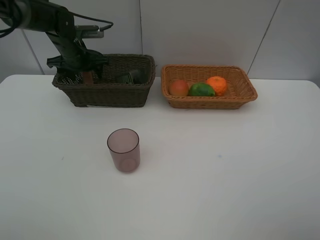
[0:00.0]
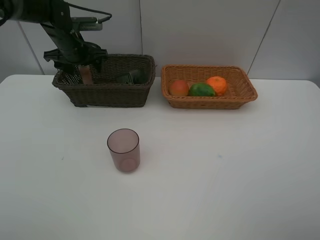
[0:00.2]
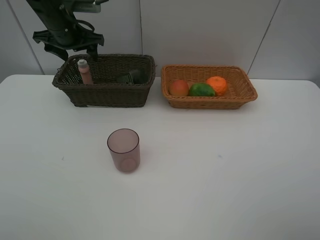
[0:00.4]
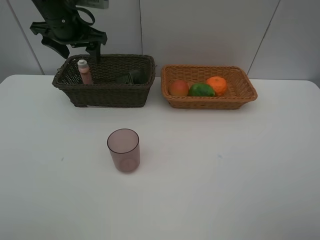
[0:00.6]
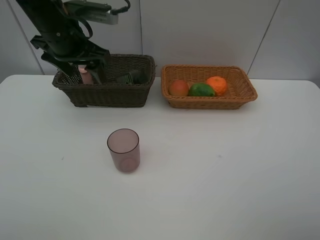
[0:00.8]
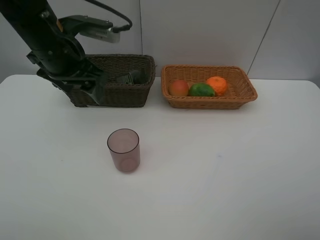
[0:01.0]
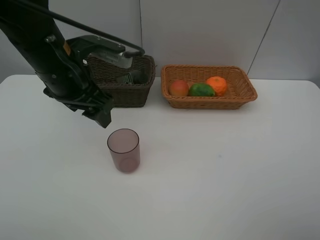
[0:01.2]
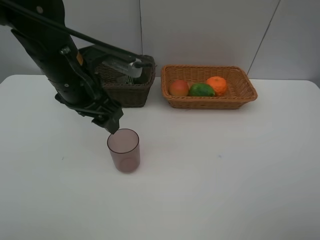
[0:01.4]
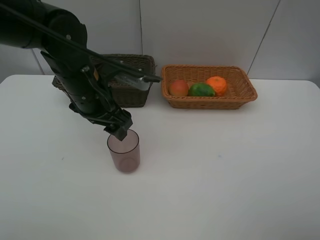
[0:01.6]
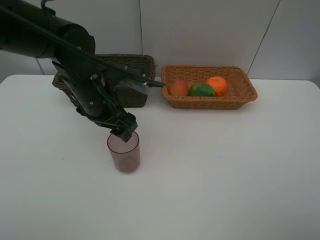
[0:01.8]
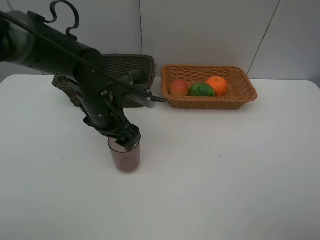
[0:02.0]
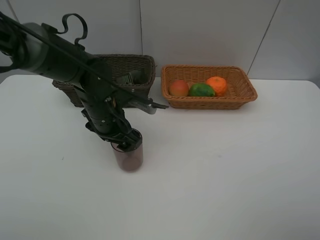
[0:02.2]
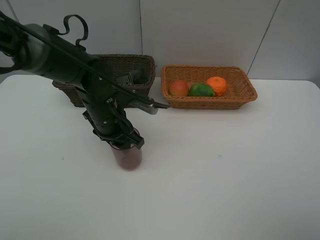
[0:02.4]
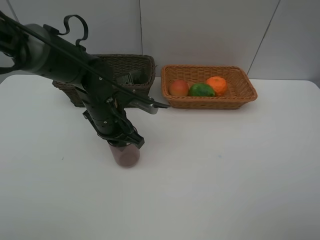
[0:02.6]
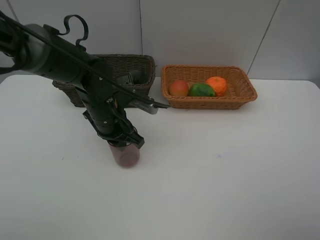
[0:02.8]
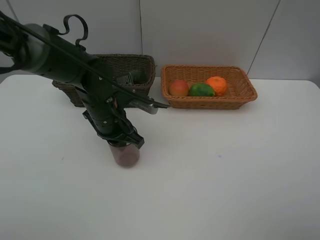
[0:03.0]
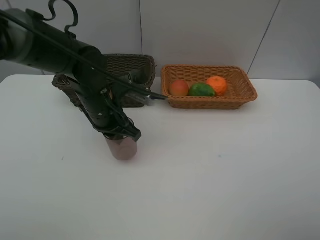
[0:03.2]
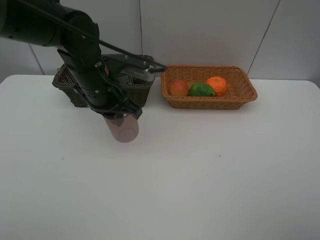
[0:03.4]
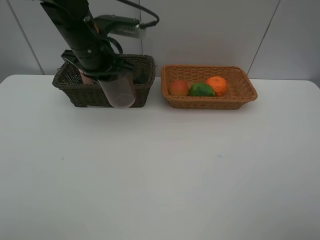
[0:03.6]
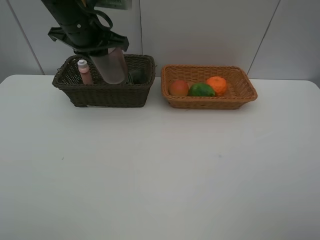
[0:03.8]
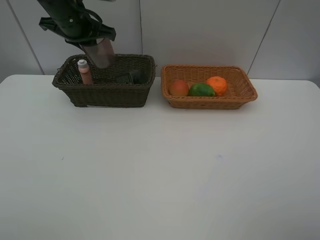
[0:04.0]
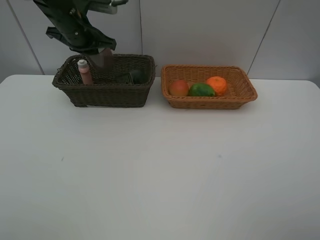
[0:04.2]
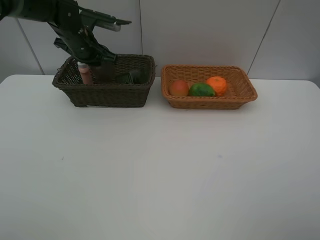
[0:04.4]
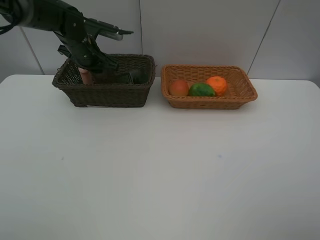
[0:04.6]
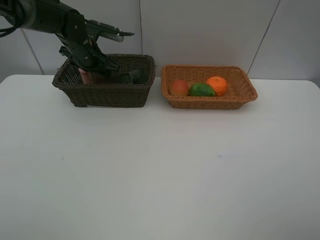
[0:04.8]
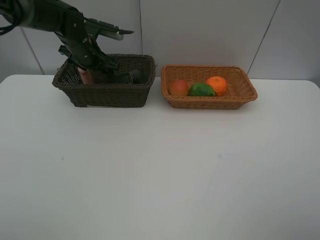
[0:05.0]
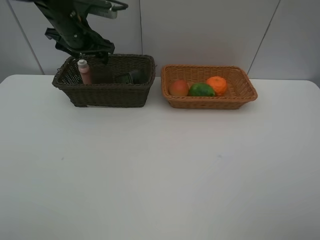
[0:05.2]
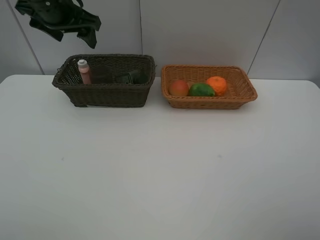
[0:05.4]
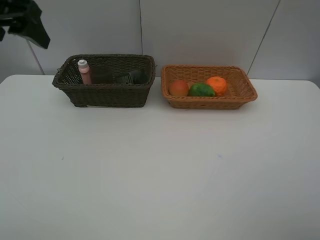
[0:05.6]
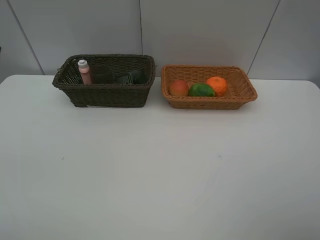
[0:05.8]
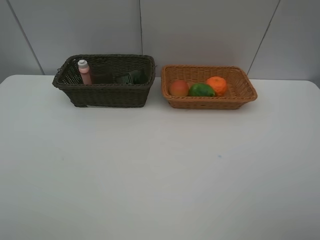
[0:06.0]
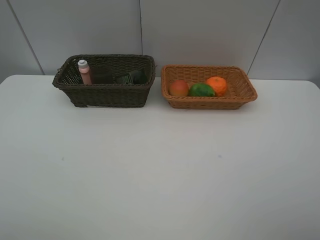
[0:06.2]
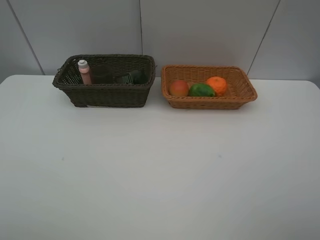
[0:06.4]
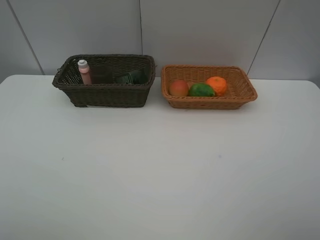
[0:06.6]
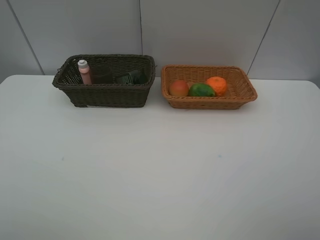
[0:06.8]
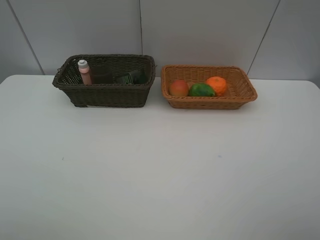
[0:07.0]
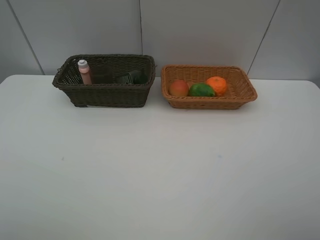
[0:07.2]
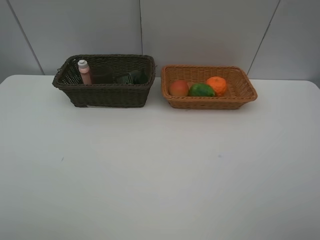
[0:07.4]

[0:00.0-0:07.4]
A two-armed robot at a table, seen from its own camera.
Task of the whole recording: place multiple objects separately in different baskets.
0:00.0 to 0:01.4: The left gripper moves backward and to the right, about 25 cm.
0:01.4 to 0:03.0: The left gripper goes roughly 10 cm downward, and closes up.
0:03.0 to 0:04.4: The left gripper heads forward, to the left and upward, covering approximately 20 cm.
0:04.4 to 0:06.0: The left gripper is displaced backward and upward by about 40 cm, and opens its fingers.

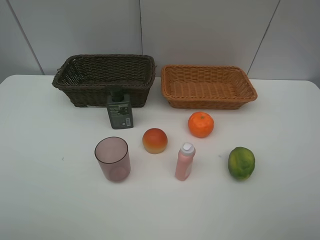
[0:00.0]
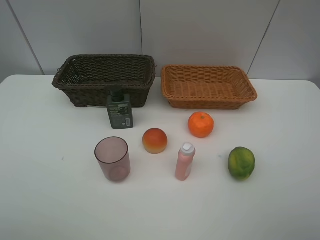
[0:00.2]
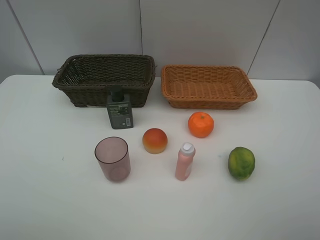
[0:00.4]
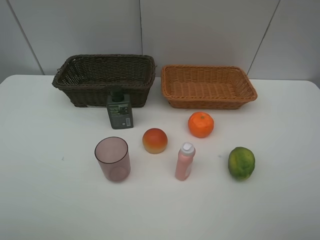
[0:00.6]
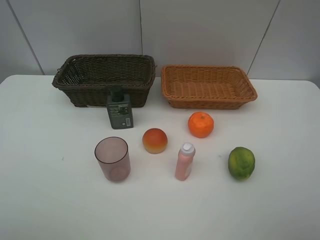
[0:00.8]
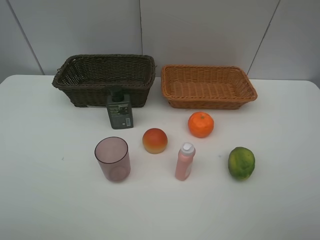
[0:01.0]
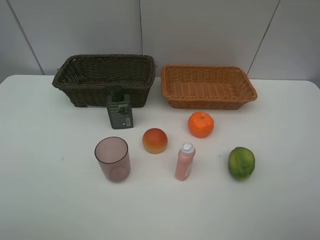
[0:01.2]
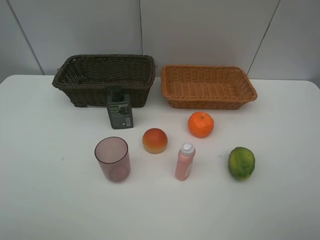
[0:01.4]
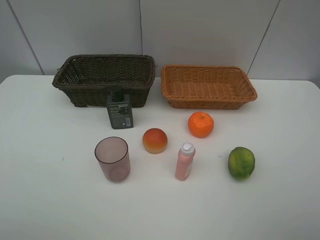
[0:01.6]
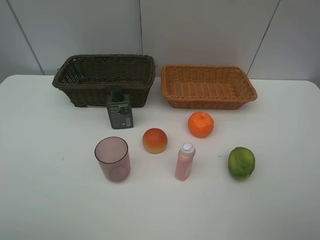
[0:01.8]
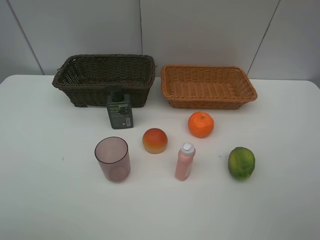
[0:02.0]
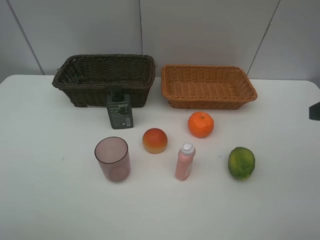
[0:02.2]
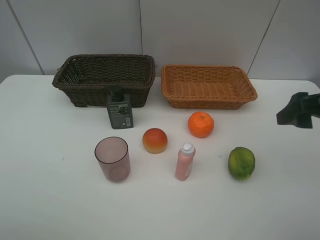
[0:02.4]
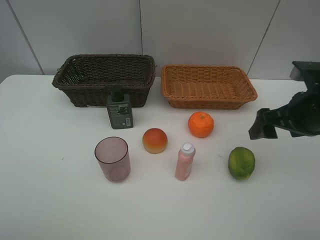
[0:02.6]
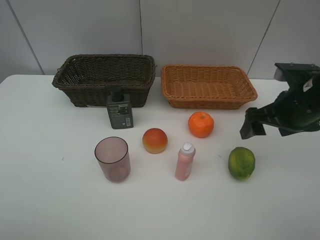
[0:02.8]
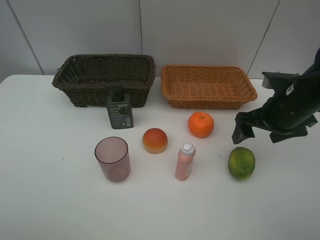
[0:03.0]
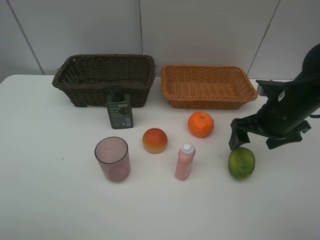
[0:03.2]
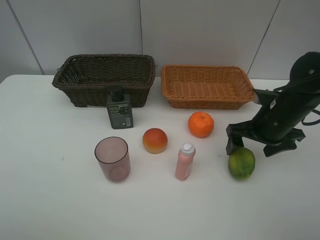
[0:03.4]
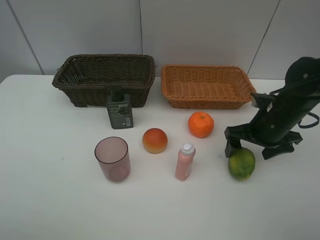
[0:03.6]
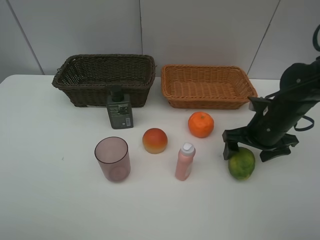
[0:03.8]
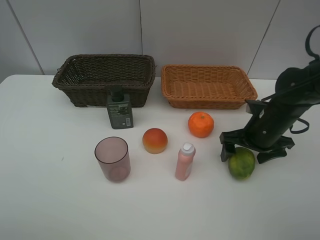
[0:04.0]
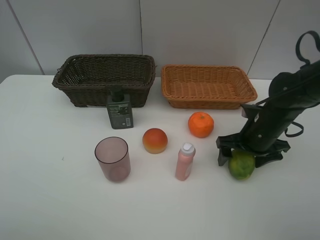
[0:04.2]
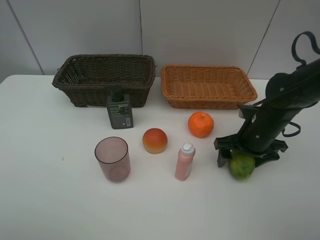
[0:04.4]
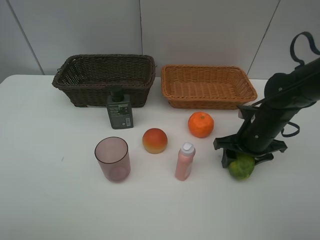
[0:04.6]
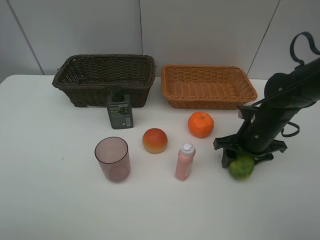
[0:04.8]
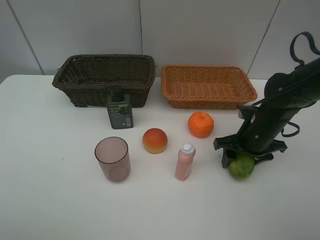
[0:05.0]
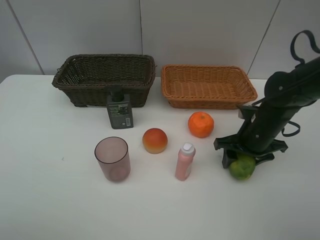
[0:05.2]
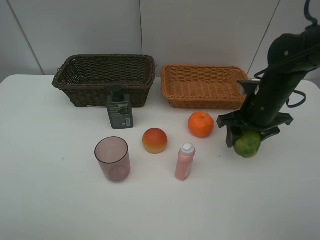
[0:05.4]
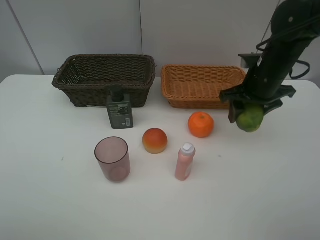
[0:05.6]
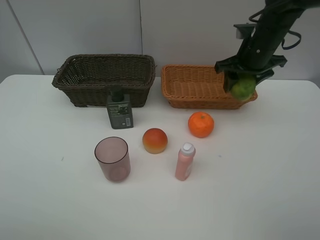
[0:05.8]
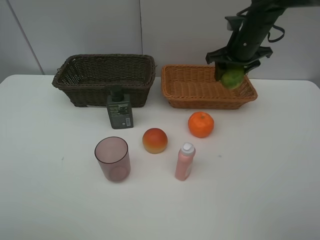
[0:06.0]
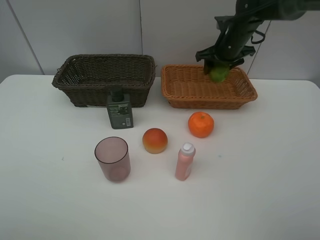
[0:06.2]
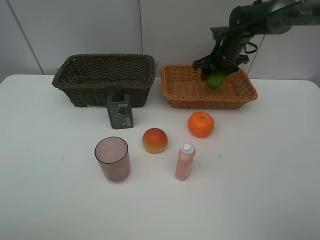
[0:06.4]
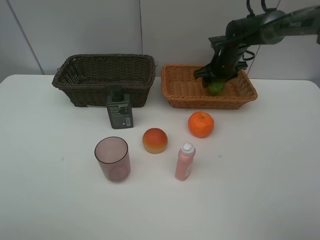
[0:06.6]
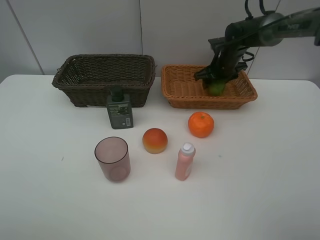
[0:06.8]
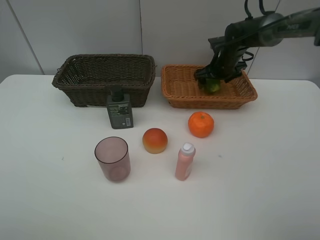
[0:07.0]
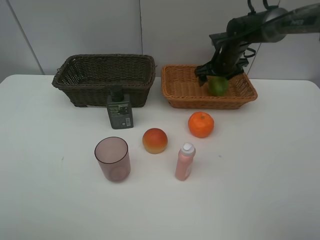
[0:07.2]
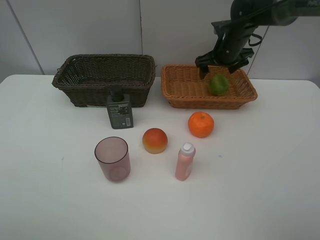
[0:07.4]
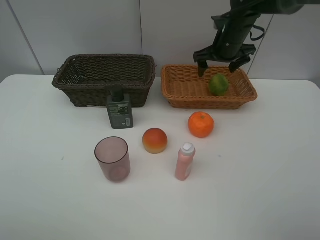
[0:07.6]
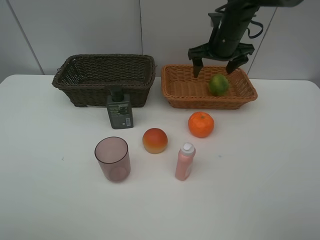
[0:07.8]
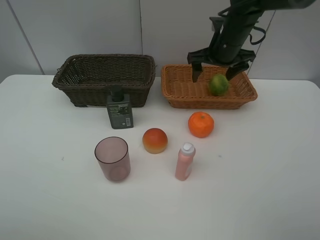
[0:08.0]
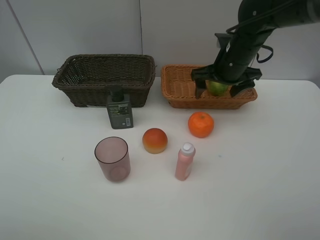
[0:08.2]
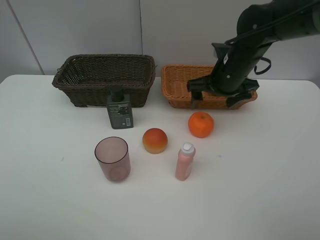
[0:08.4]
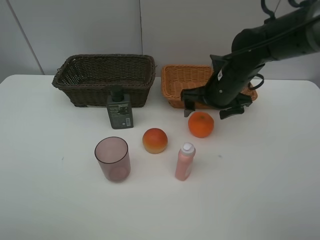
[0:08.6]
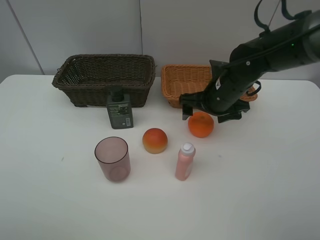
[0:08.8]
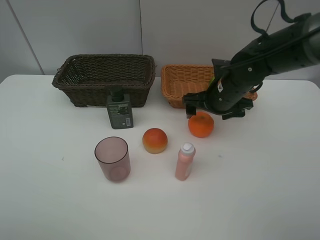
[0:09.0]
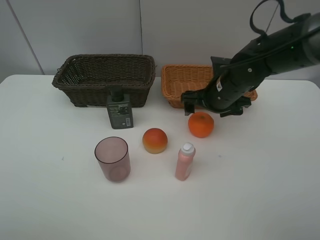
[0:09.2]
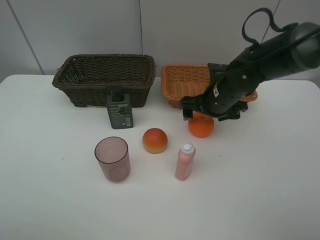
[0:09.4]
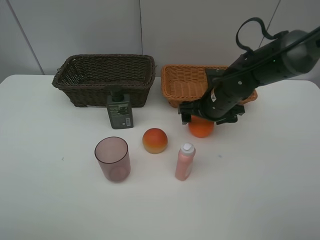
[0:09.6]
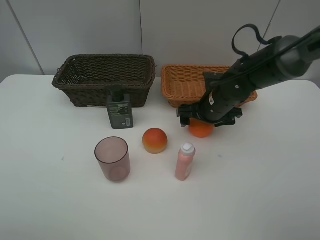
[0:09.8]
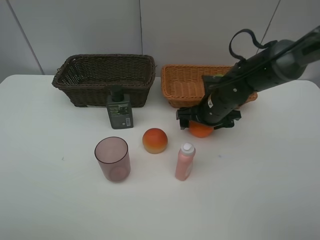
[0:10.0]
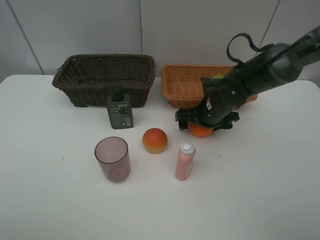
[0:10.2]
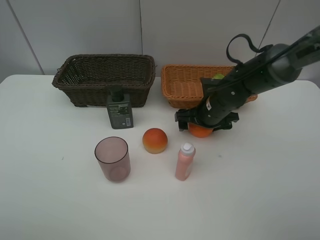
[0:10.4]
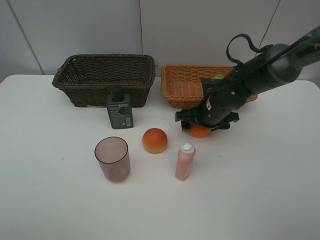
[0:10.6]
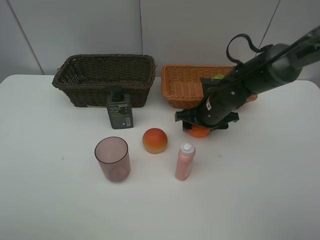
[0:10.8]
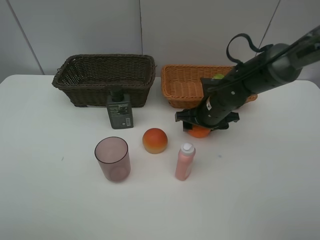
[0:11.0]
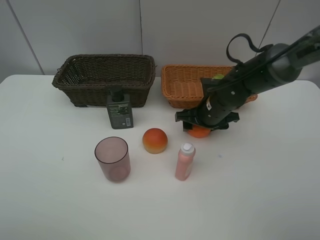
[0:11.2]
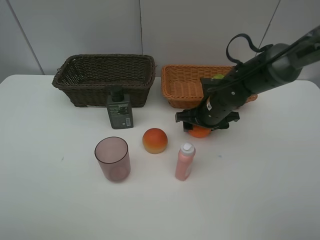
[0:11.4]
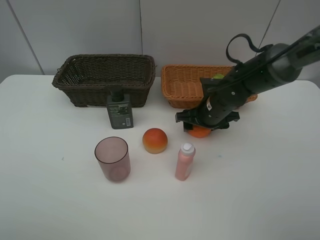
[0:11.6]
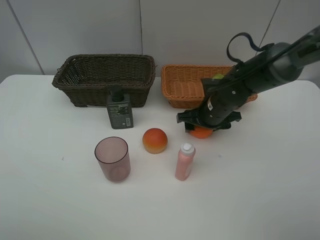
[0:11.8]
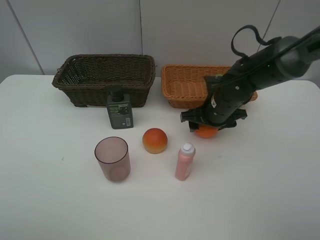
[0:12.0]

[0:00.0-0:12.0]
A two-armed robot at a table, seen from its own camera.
Task of the whole recording: place multiple objects separately in different baskets.
0:00.0 to 0:01.6: The two grippers keep their place.
0:01.6 to 0:03.0: The right gripper shifts about 25 cm forward and downward.
0:03.0 to 0:04.4: The right gripper is displaced downward by some 10 cm.
0:04.4 to 0:06.0: The right gripper goes about 20 cm forward and upward.
0:06.0 to 0:07.6: The right gripper reaches about 10 cm downward, then returns, and opens its fingers.
0:07.6 to 0:09.0: The right gripper heads backward and downward, covering some 15 cm.
0:09.0 to 0:10.4: The right gripper heads downward, covering about 5 cm.
0:10.4 to 0:12.0: The right gripper closes its fingers.

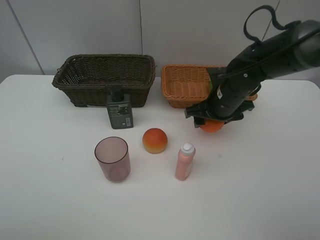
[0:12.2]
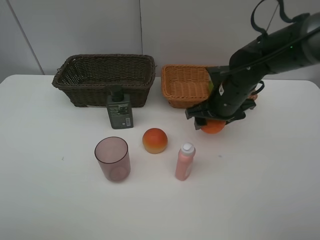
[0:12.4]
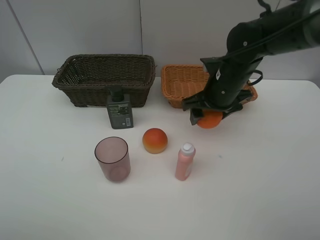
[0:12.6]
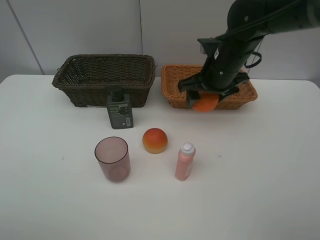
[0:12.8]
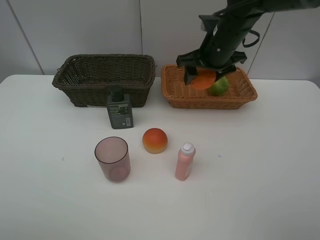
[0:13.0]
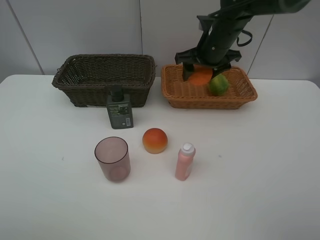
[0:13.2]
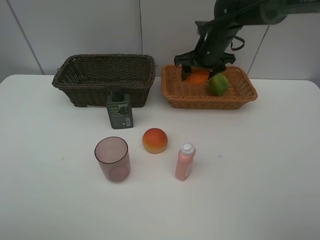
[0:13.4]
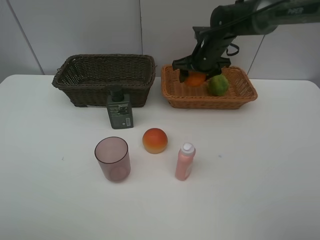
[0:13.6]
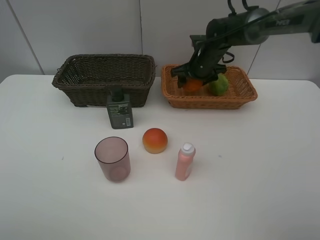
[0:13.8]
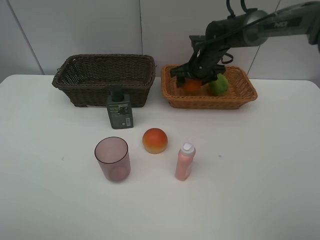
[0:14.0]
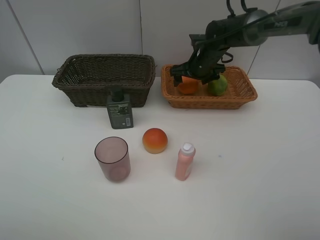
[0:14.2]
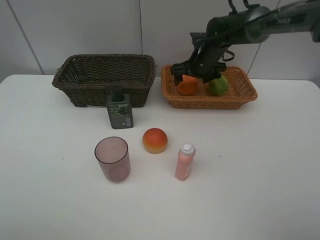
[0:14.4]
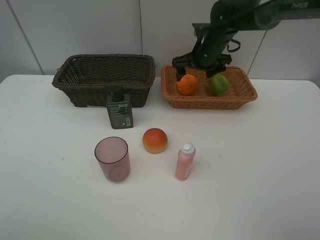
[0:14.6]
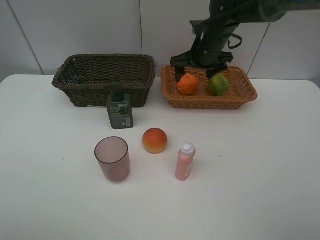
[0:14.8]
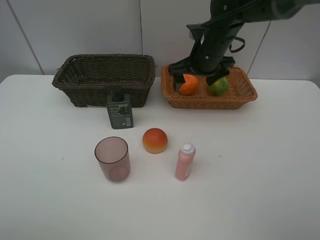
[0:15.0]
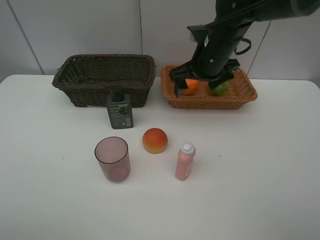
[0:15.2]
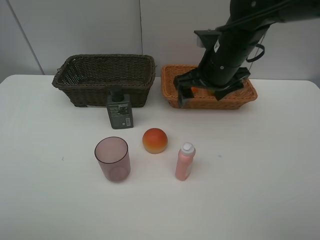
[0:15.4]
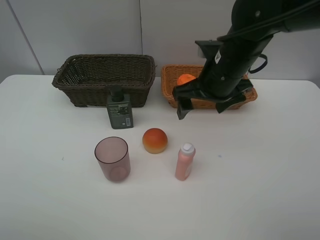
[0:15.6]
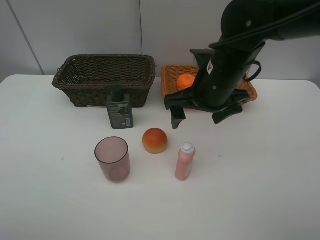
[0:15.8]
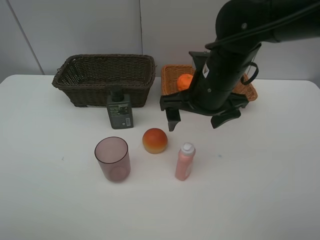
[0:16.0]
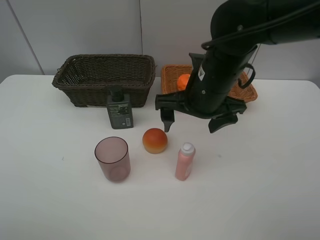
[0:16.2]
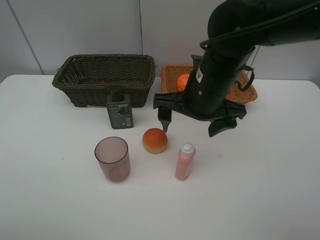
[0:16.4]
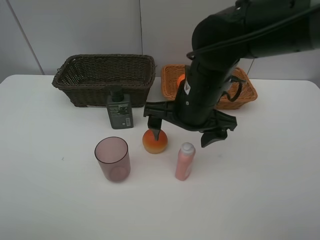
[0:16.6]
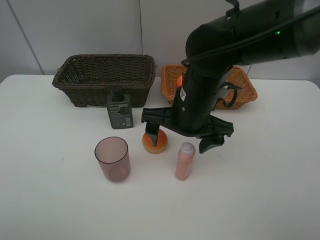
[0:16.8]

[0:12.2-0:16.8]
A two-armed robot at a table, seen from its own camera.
Task of the whole recording: place multiple objects separately in different baskets.
0:12.2 to 0:13.8: The right gripper travels forward by about 15 cm.
0:13.8 to 0:15.2: The right gripper goes some 15 cm backward and upward, and opens.
0:15.2 to 0:16.8: The right gripper moves backward and to the left, some 10 cm.
